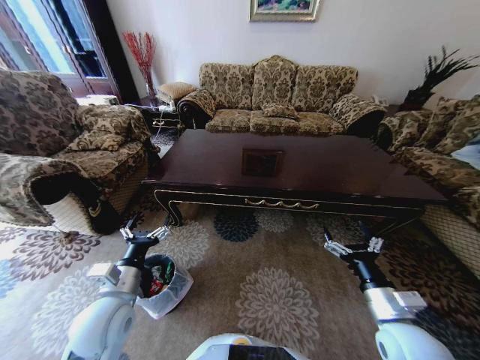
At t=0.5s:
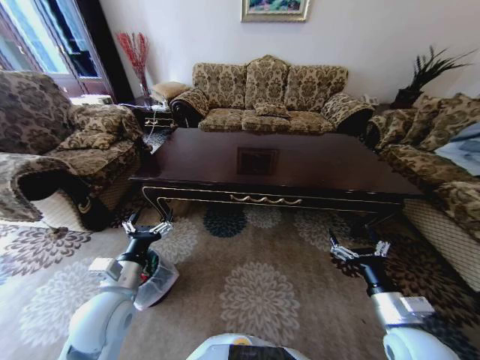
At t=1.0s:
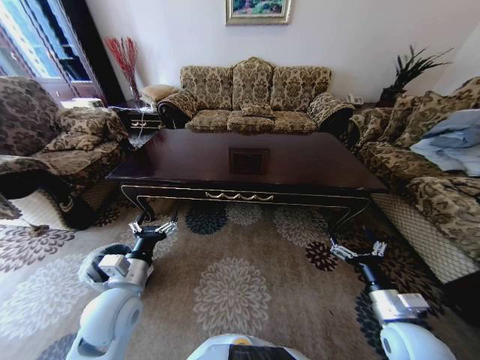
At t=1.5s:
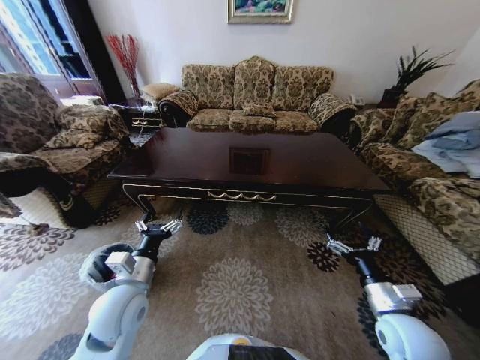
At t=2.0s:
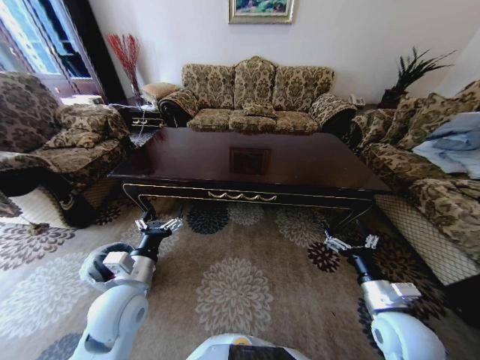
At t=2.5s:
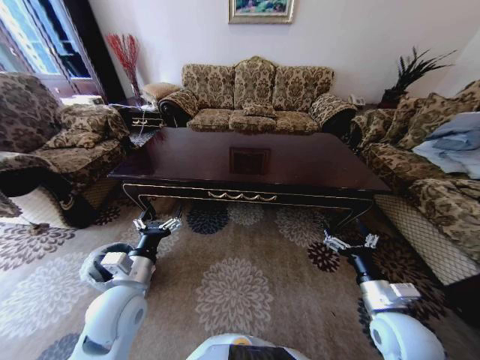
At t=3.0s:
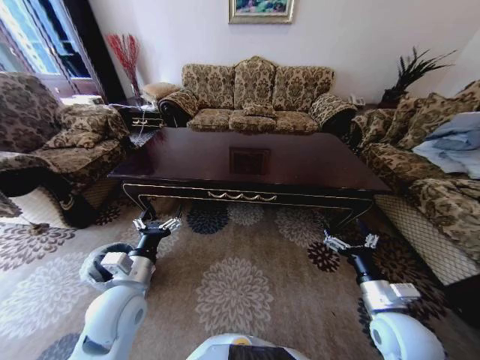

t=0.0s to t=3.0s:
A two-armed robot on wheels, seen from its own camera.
Task of the whole recording: Move to the front of the table and place the trash on the table into the trash bin.
t=1.5s to t=3.0s: The grippers move only a little.
